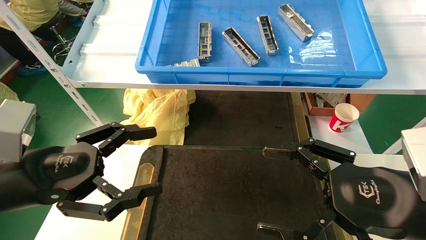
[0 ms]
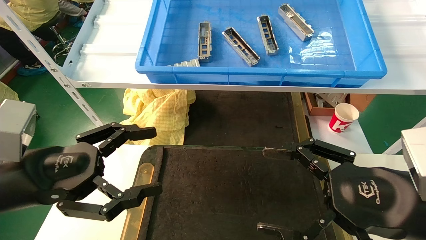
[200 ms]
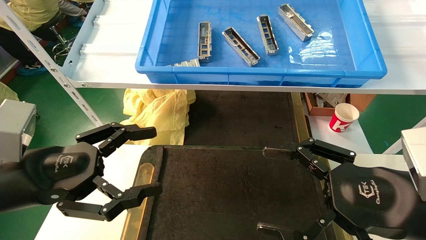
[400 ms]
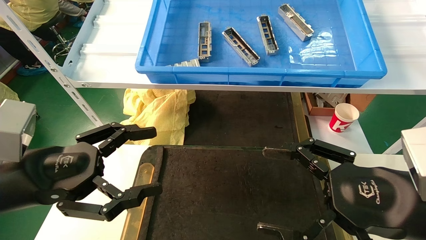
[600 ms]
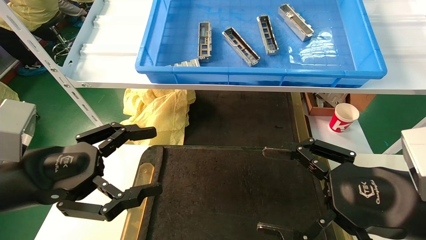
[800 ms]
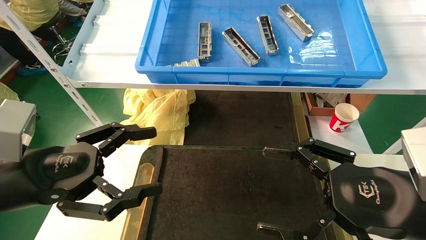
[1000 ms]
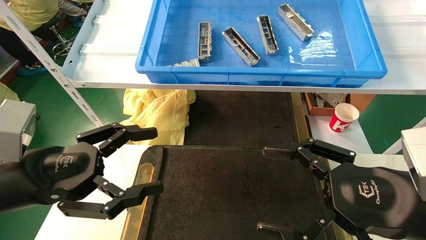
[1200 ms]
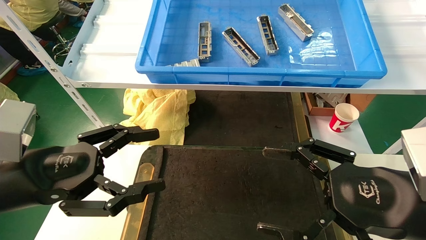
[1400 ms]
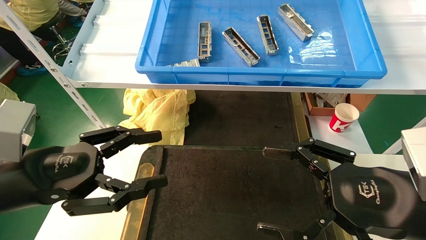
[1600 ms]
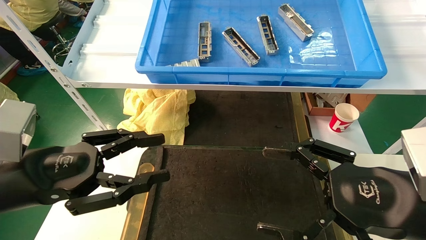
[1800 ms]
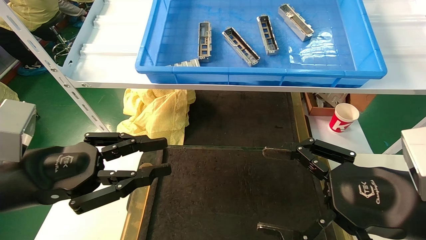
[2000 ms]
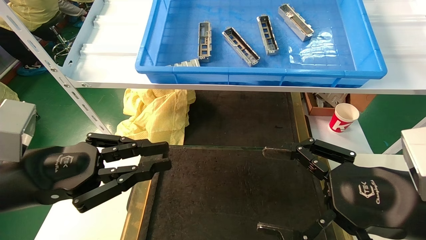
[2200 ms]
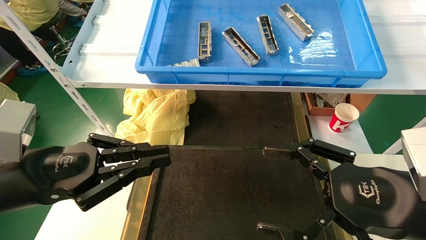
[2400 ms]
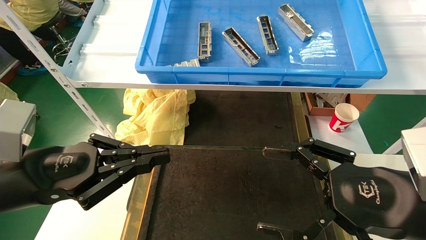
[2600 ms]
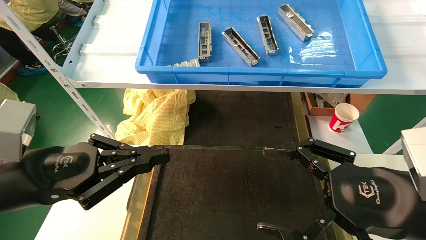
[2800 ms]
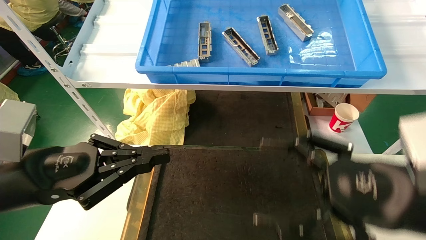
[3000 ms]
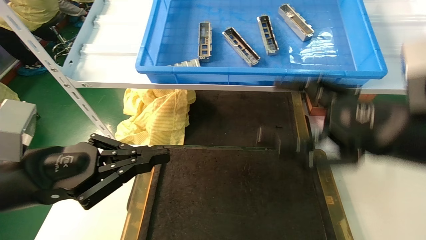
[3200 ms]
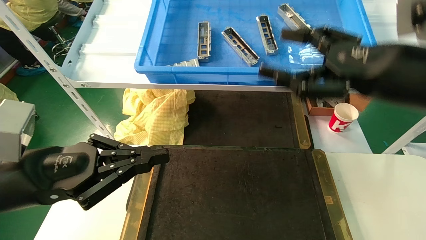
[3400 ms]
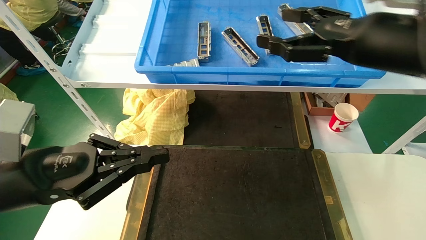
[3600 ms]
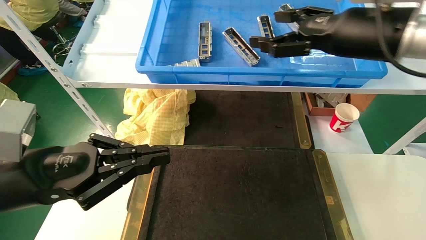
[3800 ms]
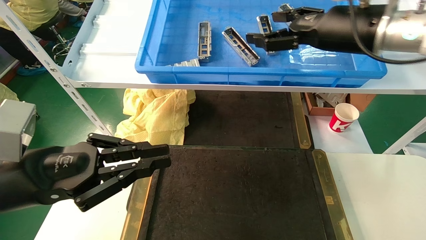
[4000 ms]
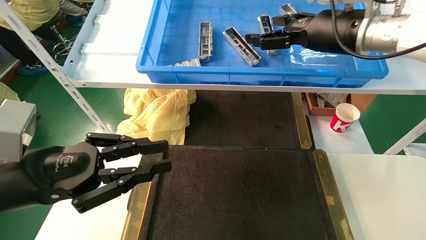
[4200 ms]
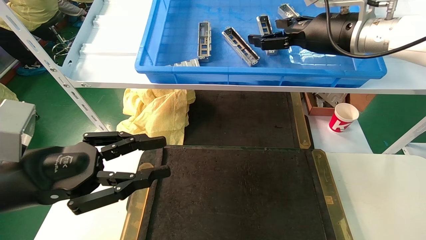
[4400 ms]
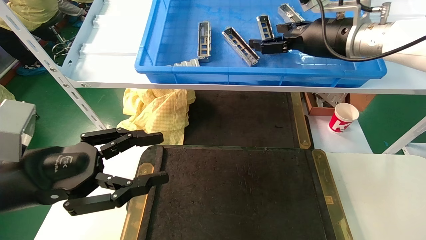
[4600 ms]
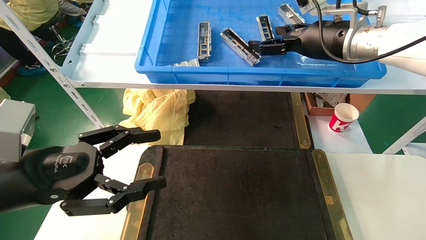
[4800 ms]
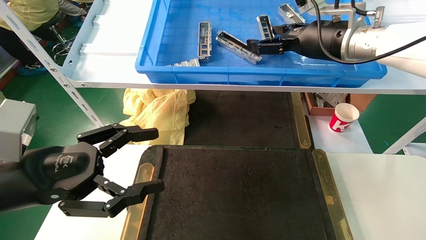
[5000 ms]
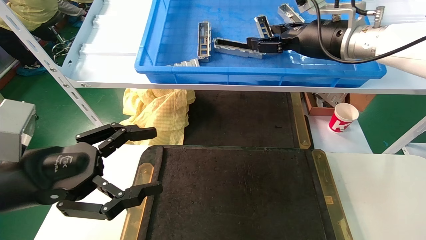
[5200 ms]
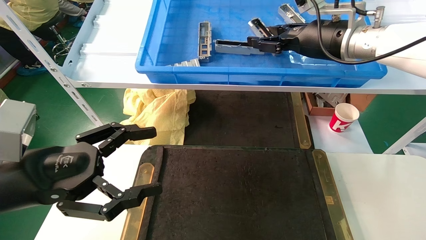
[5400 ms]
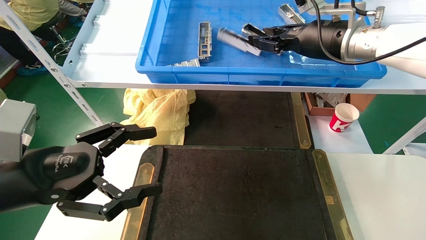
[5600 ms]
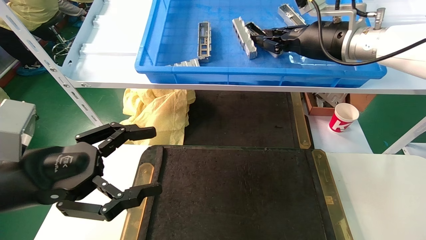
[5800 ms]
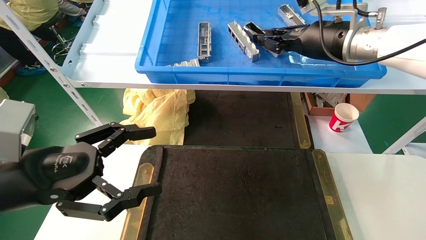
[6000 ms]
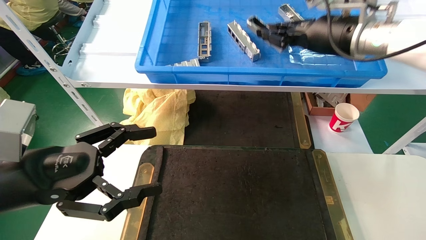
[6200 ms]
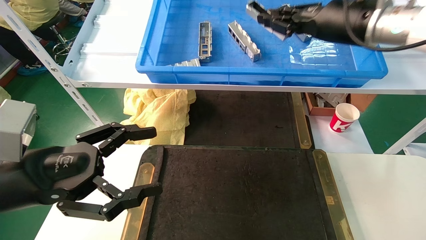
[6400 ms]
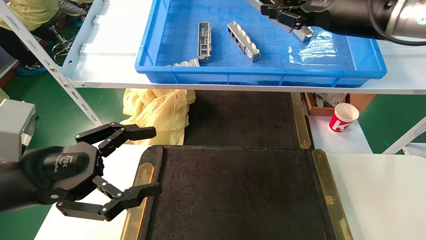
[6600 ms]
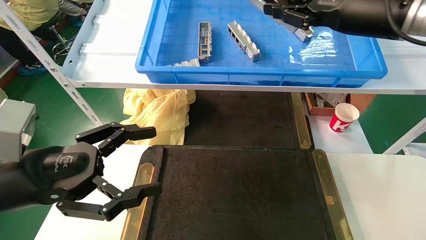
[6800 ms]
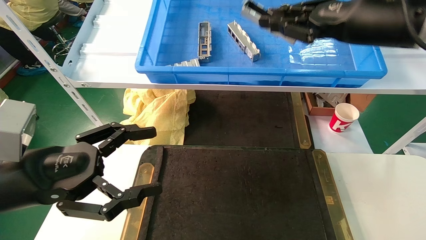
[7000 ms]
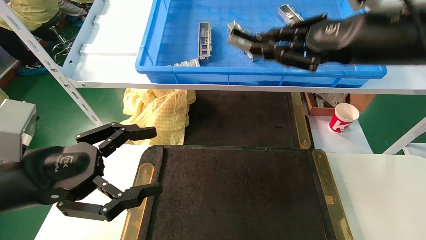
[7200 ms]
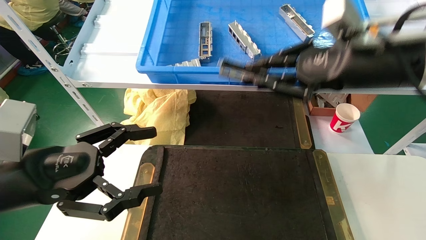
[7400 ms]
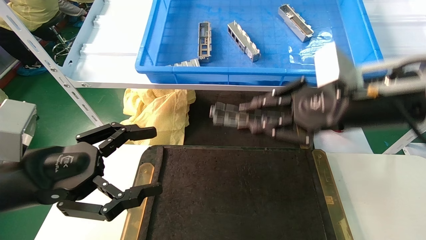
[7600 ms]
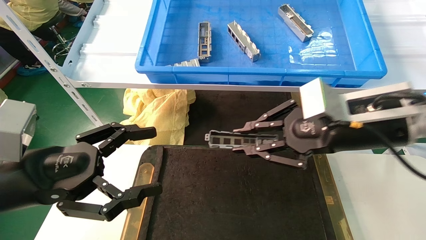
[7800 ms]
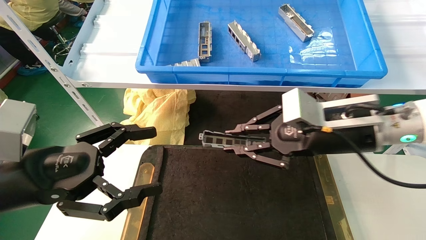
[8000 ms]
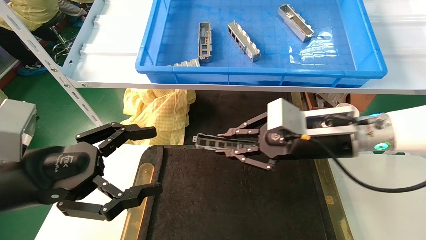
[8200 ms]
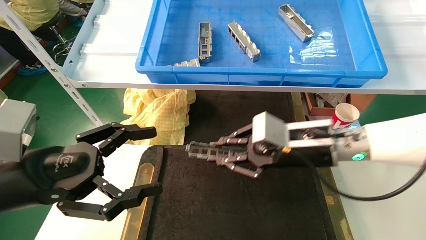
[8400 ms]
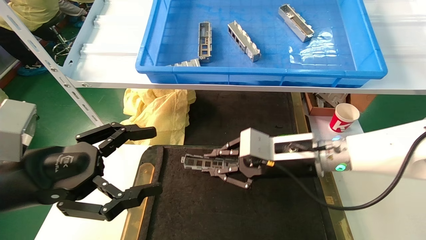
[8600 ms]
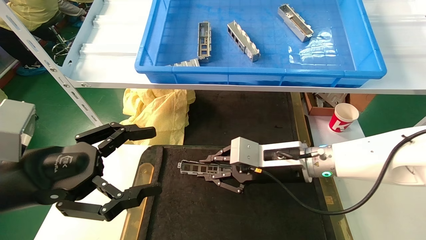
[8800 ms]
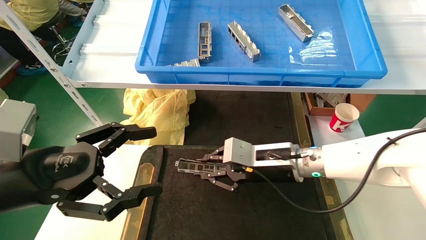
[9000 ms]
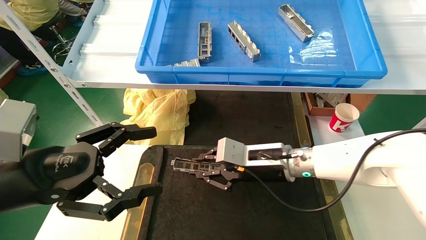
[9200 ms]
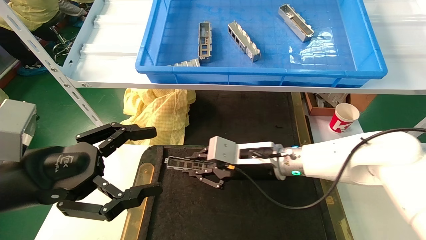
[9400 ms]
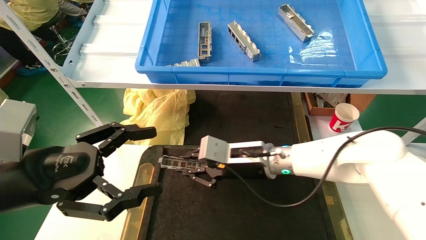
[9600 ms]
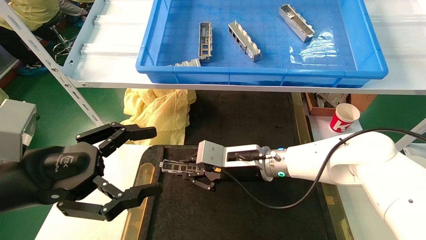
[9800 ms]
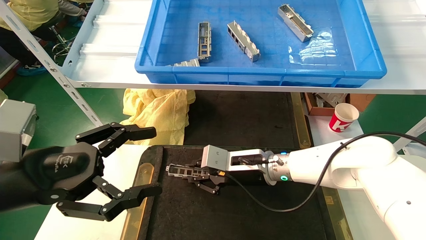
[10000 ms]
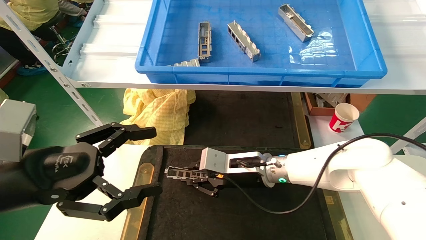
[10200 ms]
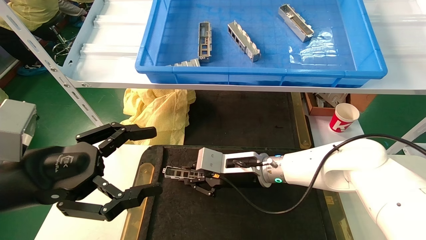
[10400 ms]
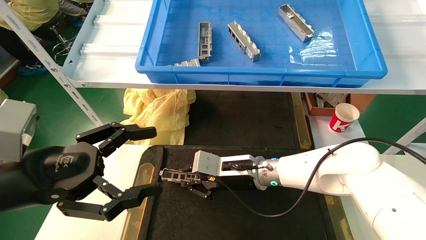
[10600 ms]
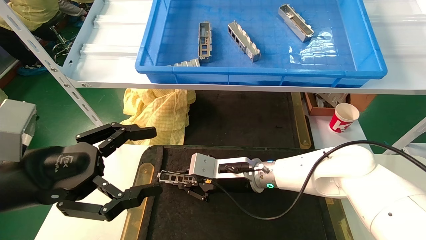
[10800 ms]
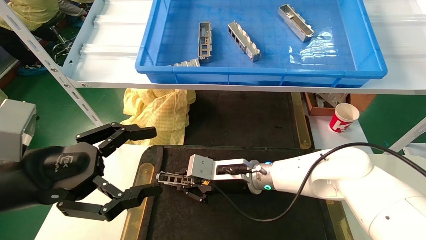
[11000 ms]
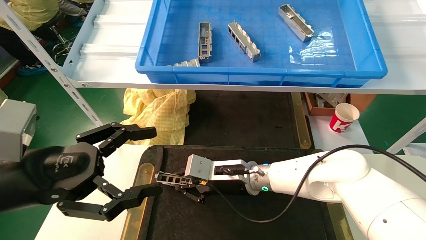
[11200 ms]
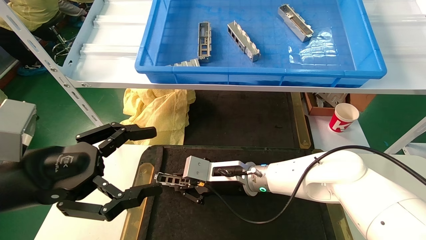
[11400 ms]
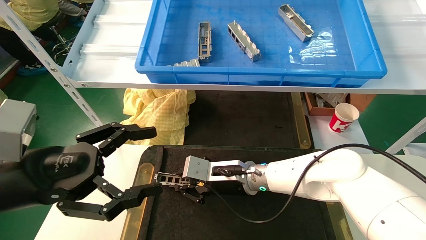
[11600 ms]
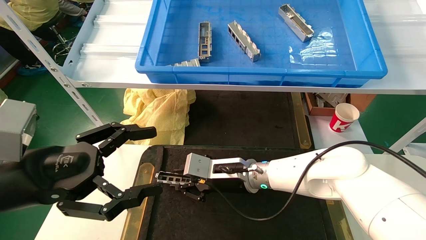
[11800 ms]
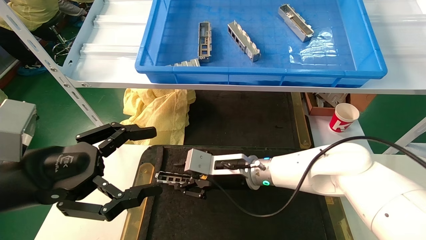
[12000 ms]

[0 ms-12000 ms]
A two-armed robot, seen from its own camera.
Task of the whole recording: grasp the part and place them on the black container.
Step, 3000 ms to 6000 ms: Pick up and lift the front USB bracket from the feeding area.
0 ms to 1600 ms: The two grippers keep their place.
1600 ms to 3000 ms: The left gripper closes.
3000 ms to 4400 ms: The right gripper travels forward and upward by about 25 cm.
4400 ms to 6000 ms: The left gripper opens its fingers. The right gripper closes its fingers.
6000 ms to 7600 ms: The right gripper shifts about 15 cm backward and downward.
7600 ms to 9000 ms: The right gripper goes about 20 cm downward, to the left and forward.
9000 ms to 10400 ms: The right gripper travels to the left by approximately 5 cm.
10400 ms to 12000 ms: There are only small adjustments of the grippers.

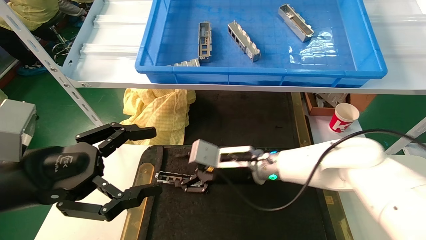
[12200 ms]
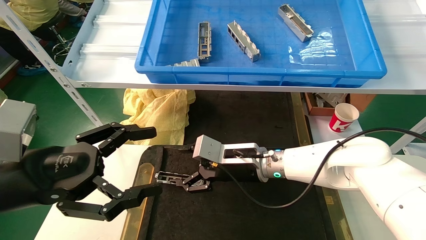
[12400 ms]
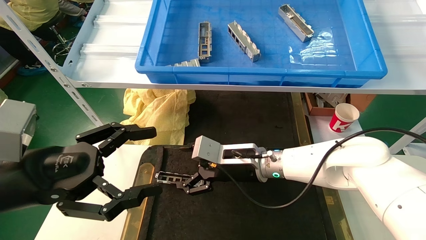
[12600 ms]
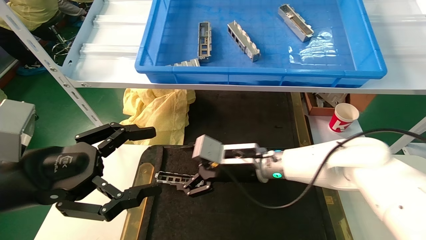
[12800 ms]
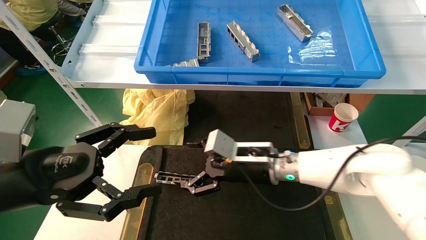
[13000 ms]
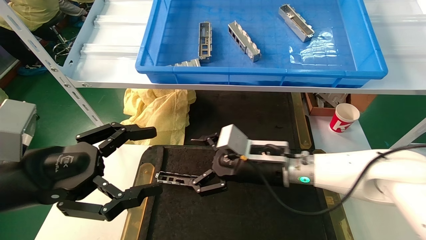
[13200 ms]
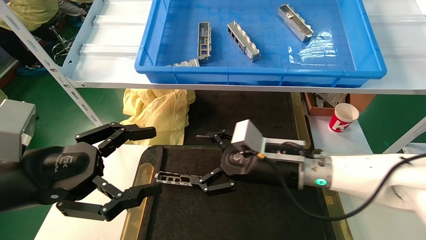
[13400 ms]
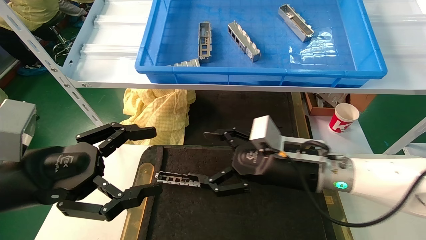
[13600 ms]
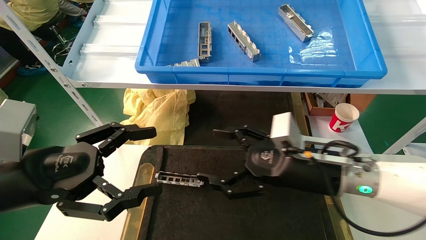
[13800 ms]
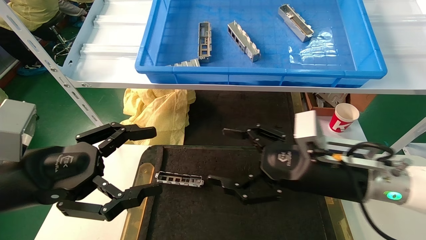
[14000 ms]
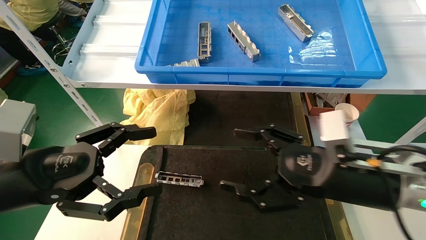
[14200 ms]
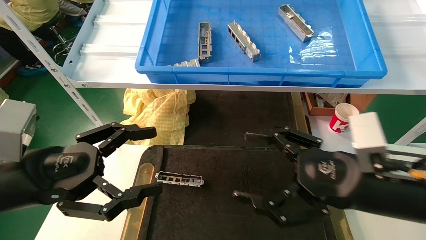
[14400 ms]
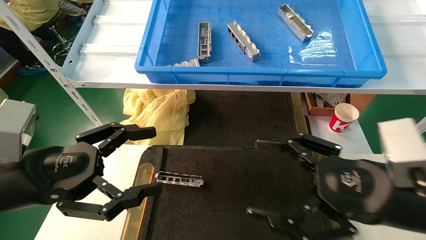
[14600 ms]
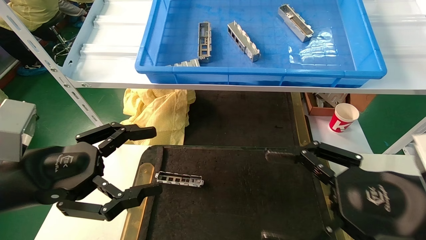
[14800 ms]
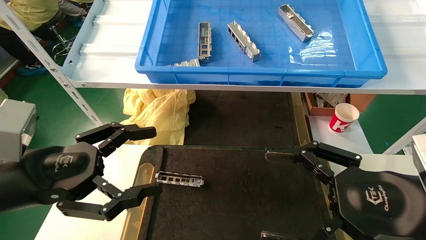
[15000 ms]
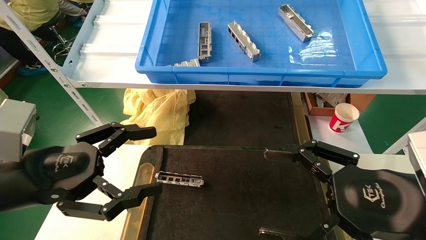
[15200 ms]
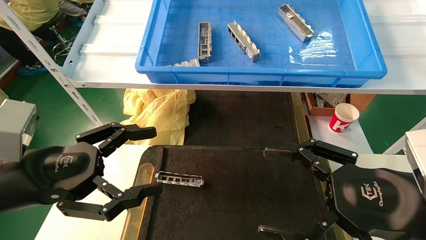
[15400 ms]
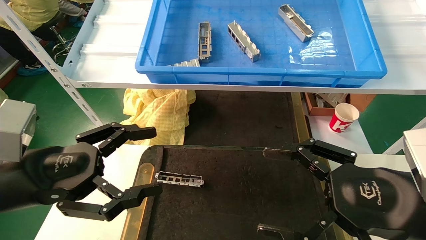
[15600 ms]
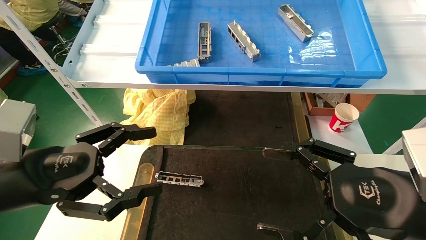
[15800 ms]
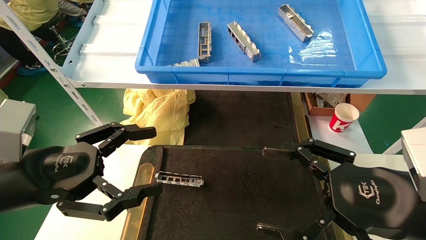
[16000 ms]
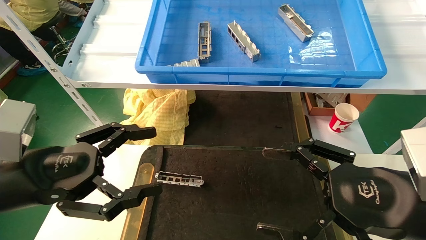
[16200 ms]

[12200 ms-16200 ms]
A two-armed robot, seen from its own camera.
Task of the whole recording: grasp the part and place them on the black container.
12200 ms to 13600 ms: The right gripper moves to the right and backward, about 10 cm, and opens up.
13600 ms to 14800 ms: The right gripper goes roughly 20 cm backward and to the right.
14800 ms to 16200 ms: The two grippers keep their place.
